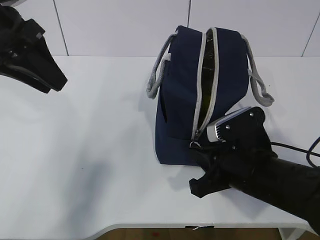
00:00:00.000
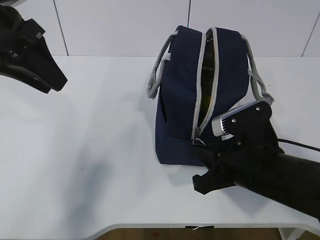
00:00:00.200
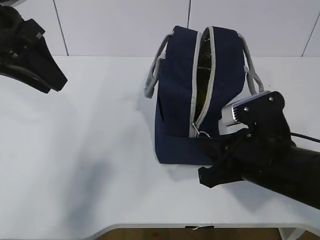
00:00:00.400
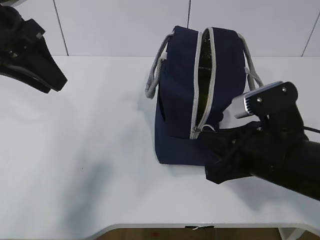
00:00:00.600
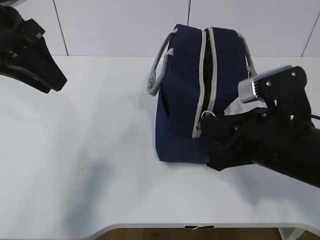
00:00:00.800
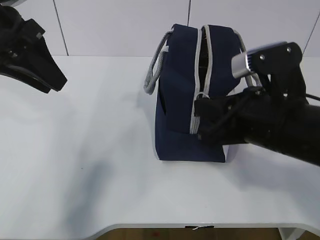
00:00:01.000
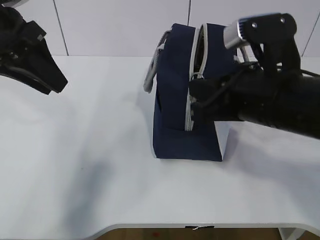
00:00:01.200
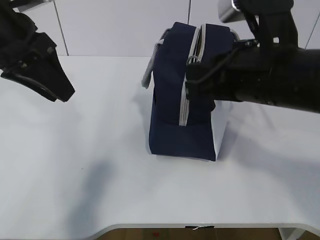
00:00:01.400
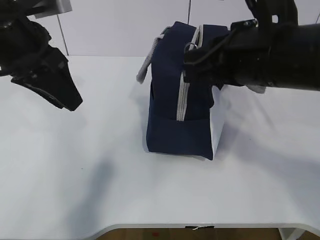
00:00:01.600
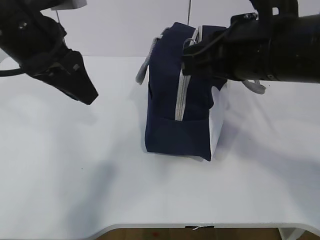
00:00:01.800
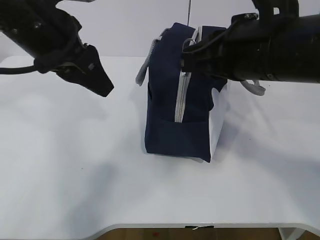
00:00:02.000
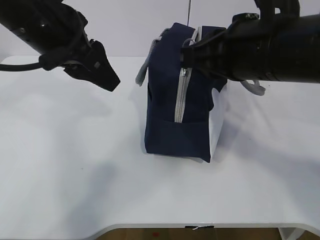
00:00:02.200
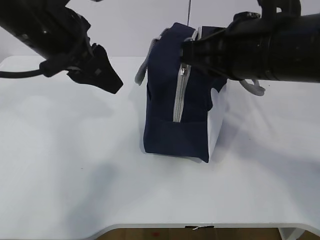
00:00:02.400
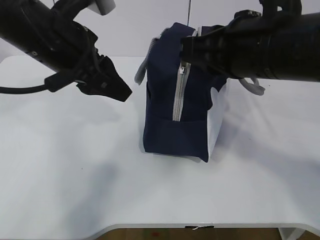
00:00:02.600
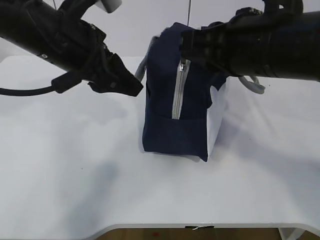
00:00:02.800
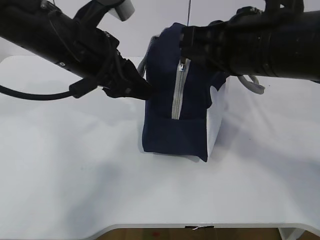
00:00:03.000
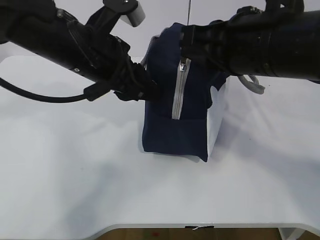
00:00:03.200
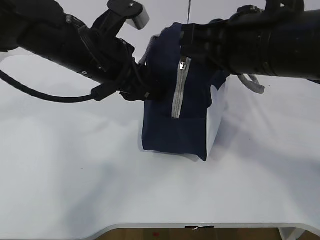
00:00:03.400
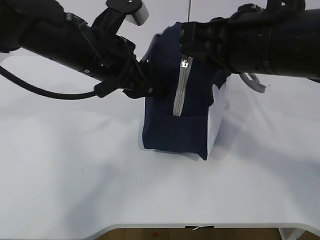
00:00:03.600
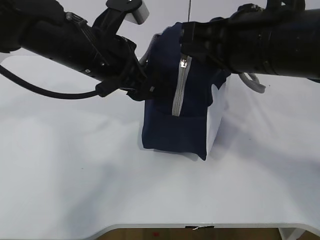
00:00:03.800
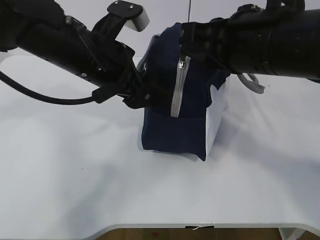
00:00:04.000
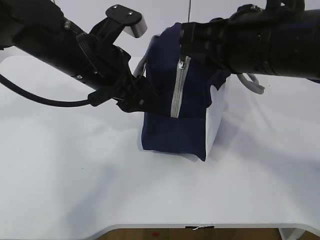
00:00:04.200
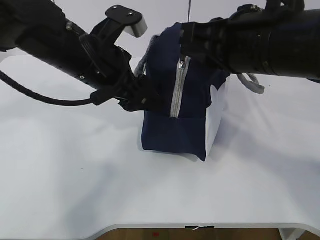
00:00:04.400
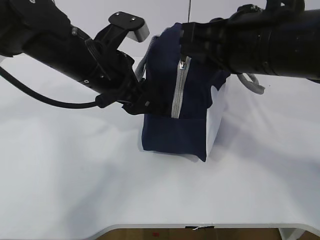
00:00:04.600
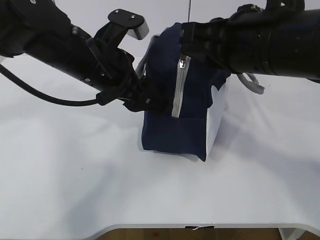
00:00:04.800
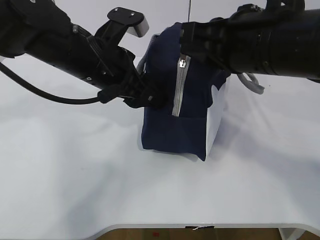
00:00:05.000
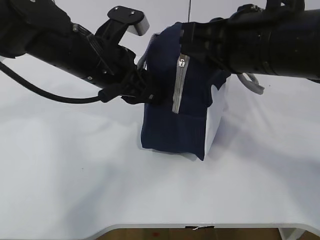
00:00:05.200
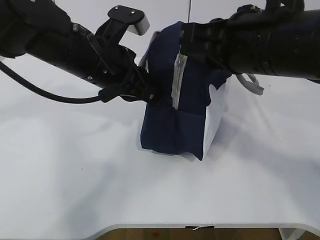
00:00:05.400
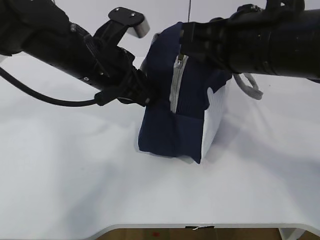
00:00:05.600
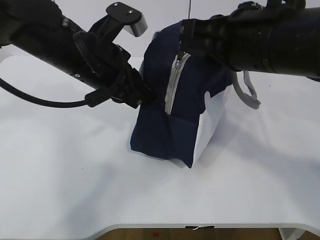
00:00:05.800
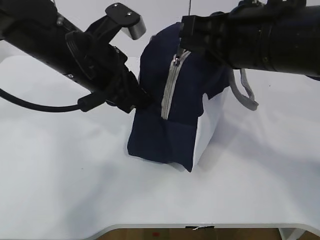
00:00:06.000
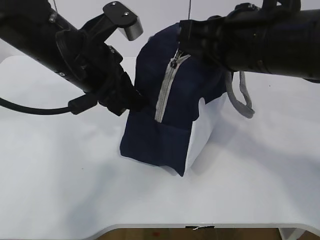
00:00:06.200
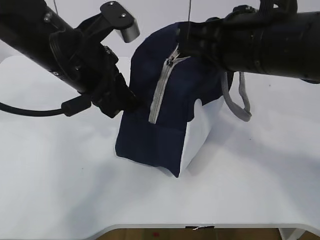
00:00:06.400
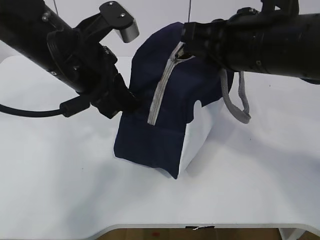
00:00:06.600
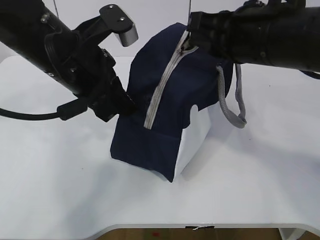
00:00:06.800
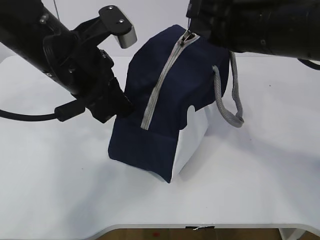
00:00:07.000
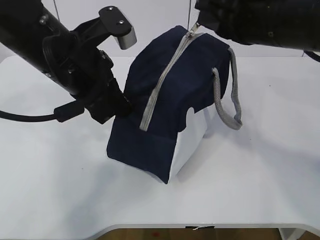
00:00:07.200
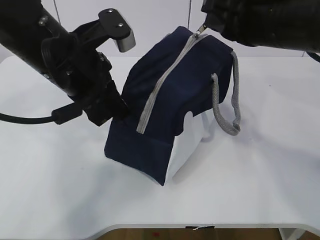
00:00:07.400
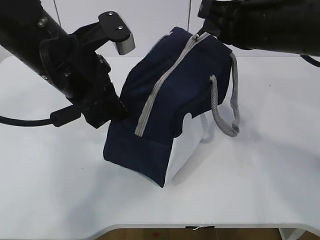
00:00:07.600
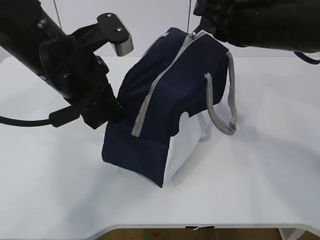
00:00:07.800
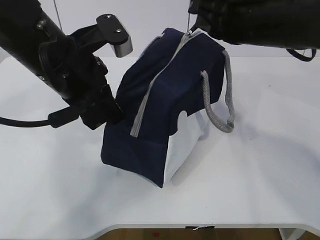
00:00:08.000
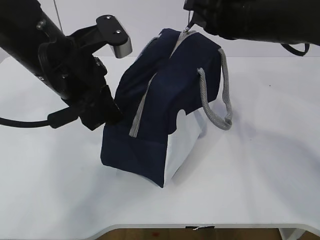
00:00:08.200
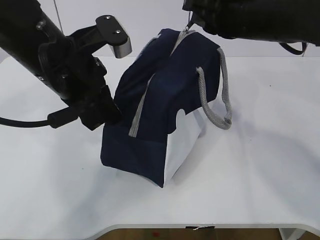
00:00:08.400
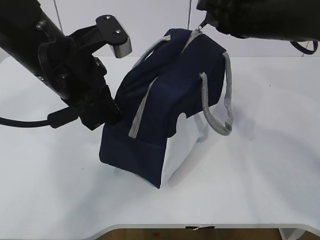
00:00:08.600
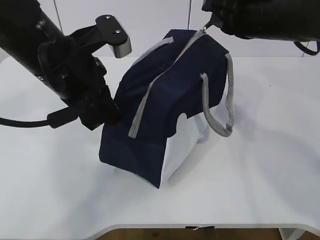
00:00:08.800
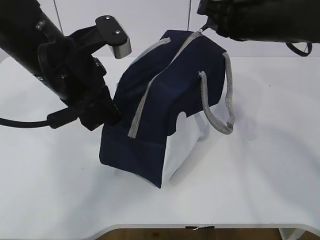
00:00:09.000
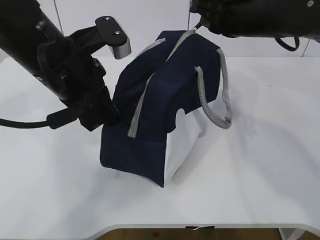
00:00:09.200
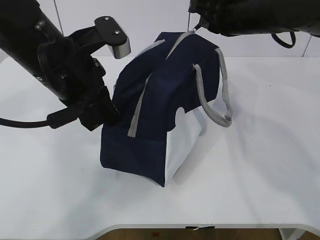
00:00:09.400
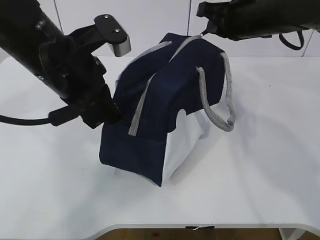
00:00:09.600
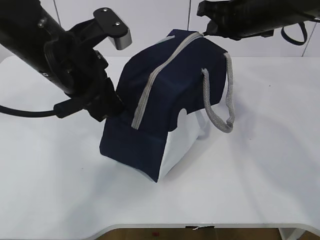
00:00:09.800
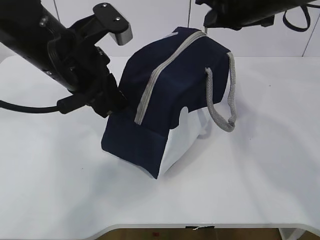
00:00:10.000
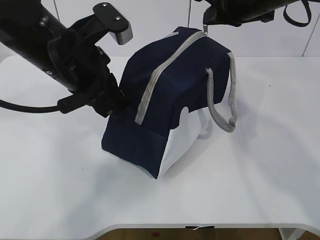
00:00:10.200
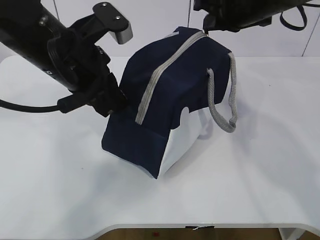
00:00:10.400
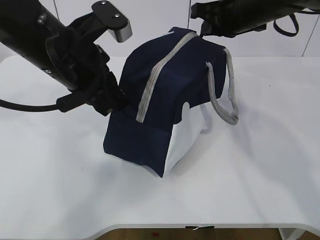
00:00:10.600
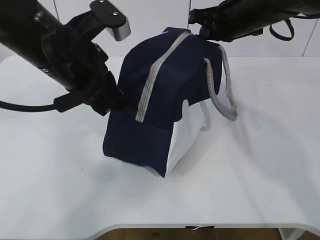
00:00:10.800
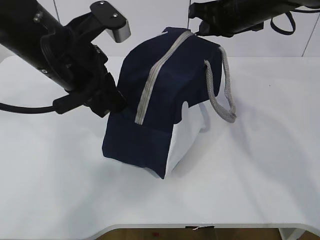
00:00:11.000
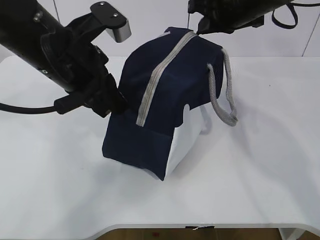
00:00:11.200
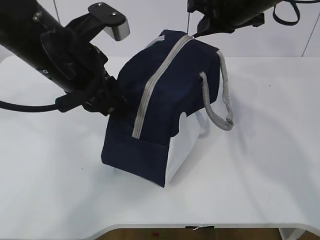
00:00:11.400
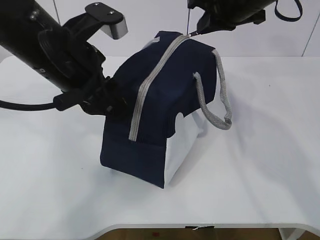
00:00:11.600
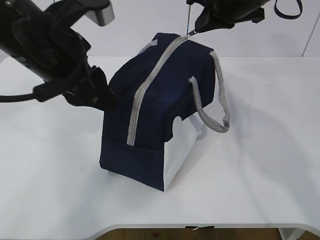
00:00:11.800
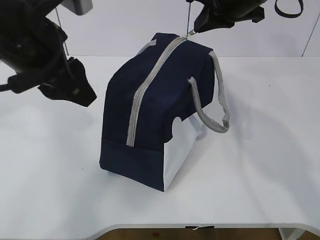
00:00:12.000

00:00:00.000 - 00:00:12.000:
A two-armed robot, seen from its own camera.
00:00:00.000 - 00:00:01.600: The right gripper heads upward, covering roughly 15 cm.
00:00:01.600 - 00:00:03.000: The left gripper is displaced to the right by roughly 5 cm.
00:00:03.000 - 00:00:04.400: The left gripper opens up.
00:00:04.400 - 00:00:06.000: The left gripper closes up.
00:00:06.000 - 00:00:07.600: The right gripper travels forward by roughly 5 cm.
00:00:07.600 - 00:00:09.000: The right gripper shifts approximately 5 cm forward.
00:00:09.000 - 00:00:10.400: The grippers make only small movements.
00:00:10.400 - 00:00:12.000: The left gripper changes place by some 5 cm, and opens its fingers.

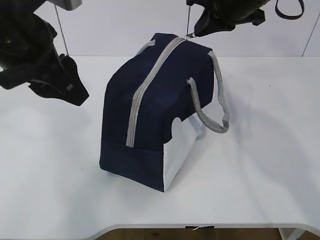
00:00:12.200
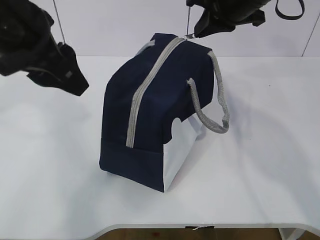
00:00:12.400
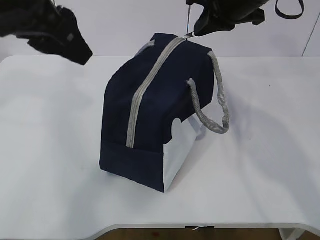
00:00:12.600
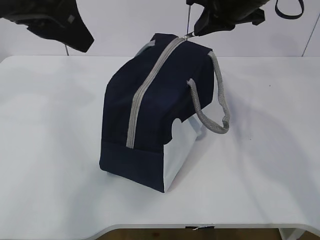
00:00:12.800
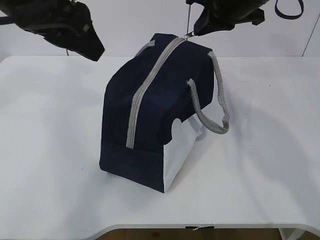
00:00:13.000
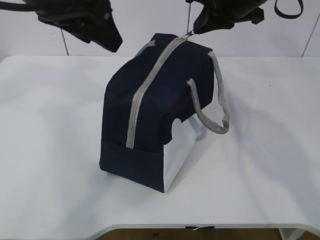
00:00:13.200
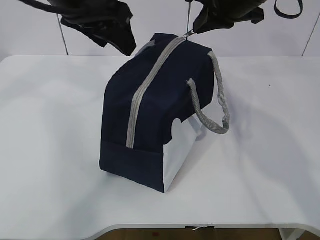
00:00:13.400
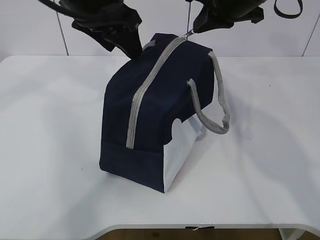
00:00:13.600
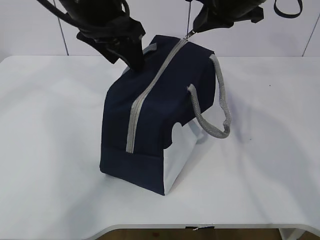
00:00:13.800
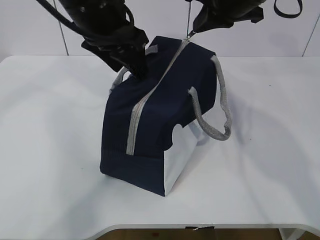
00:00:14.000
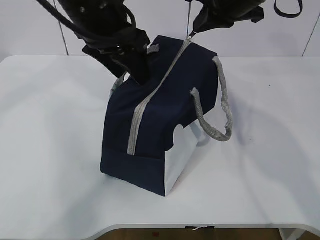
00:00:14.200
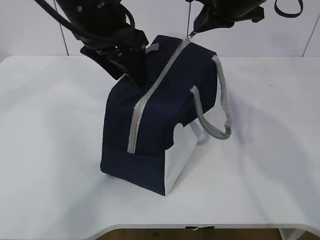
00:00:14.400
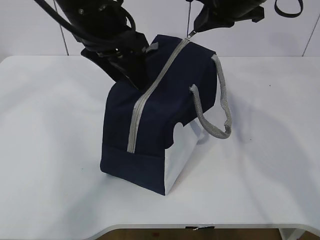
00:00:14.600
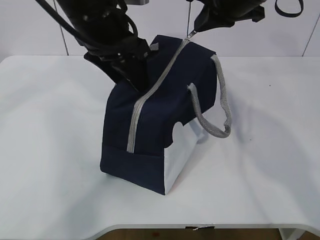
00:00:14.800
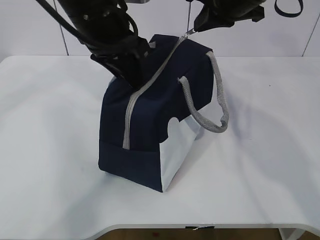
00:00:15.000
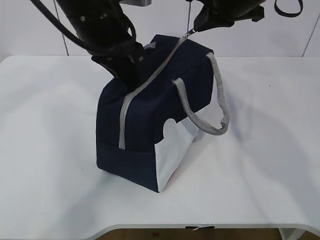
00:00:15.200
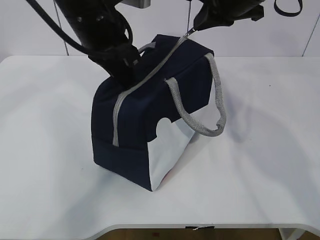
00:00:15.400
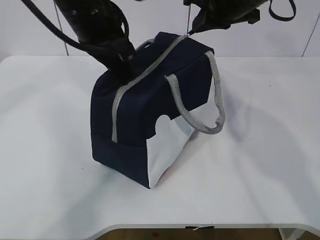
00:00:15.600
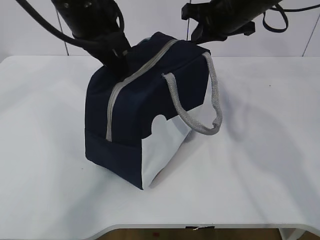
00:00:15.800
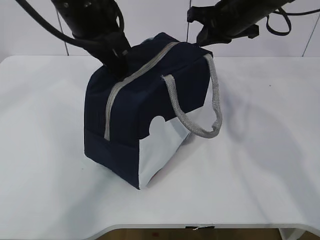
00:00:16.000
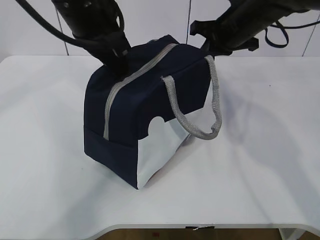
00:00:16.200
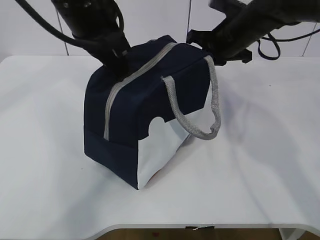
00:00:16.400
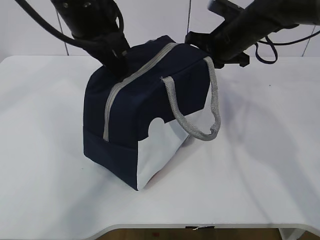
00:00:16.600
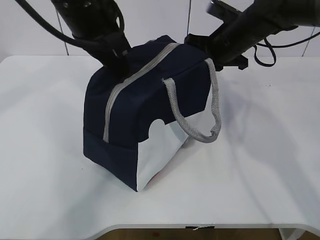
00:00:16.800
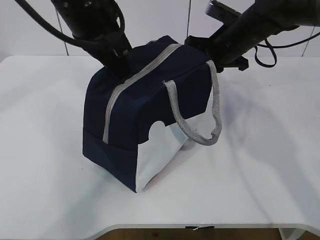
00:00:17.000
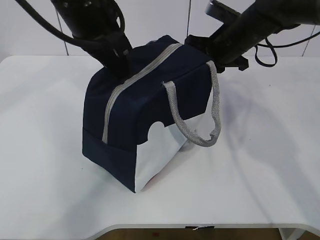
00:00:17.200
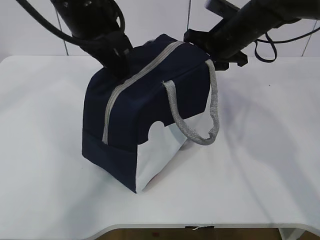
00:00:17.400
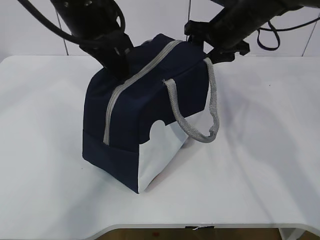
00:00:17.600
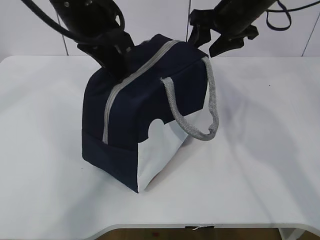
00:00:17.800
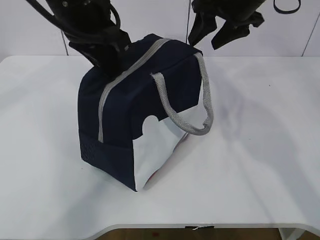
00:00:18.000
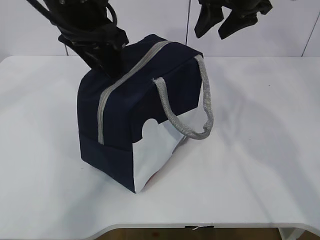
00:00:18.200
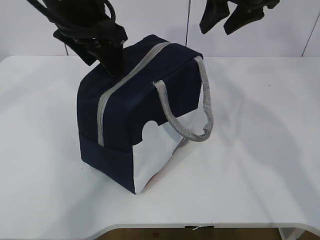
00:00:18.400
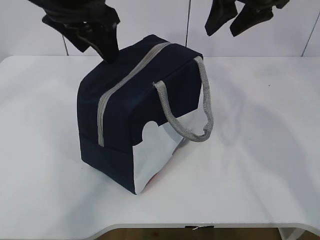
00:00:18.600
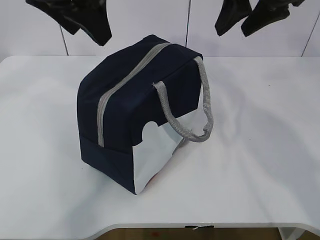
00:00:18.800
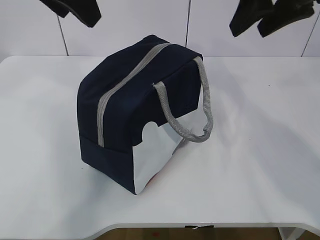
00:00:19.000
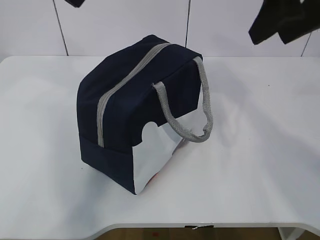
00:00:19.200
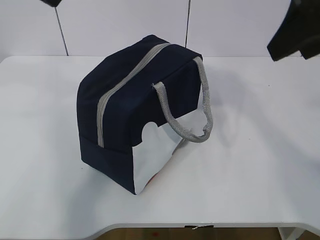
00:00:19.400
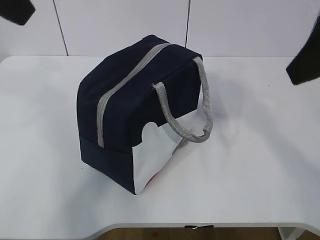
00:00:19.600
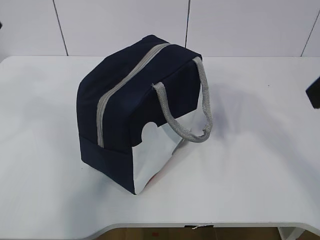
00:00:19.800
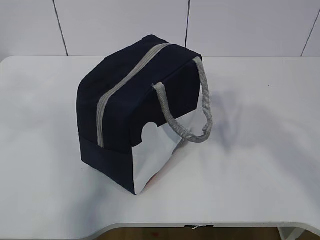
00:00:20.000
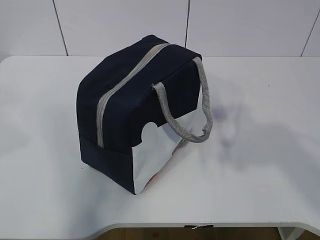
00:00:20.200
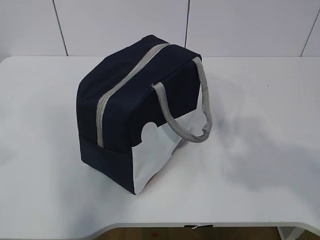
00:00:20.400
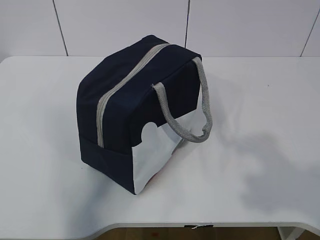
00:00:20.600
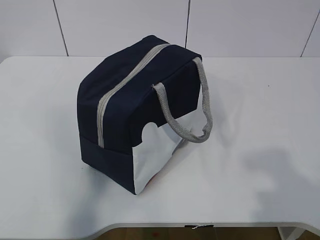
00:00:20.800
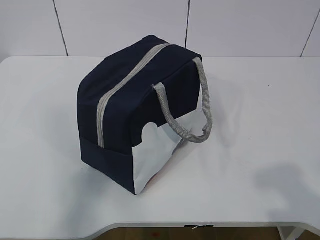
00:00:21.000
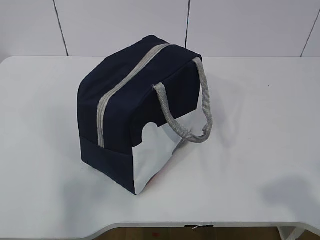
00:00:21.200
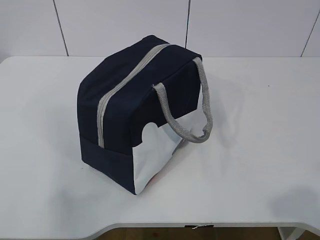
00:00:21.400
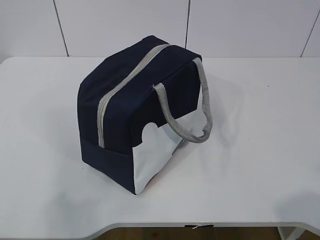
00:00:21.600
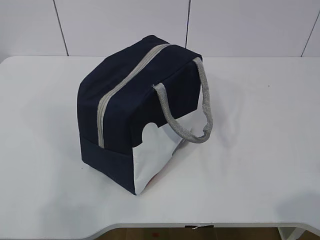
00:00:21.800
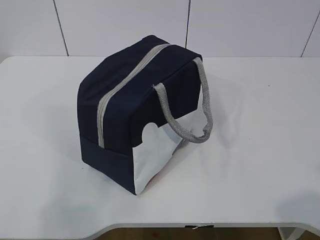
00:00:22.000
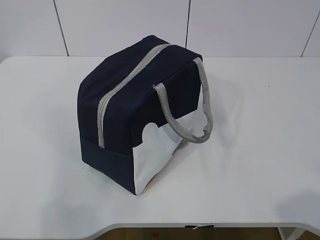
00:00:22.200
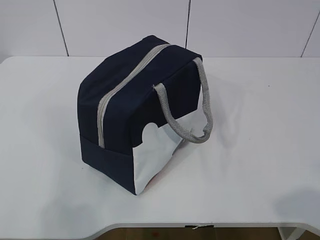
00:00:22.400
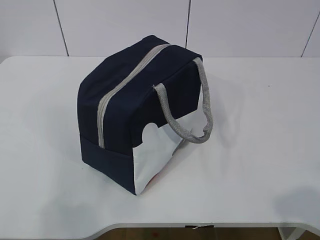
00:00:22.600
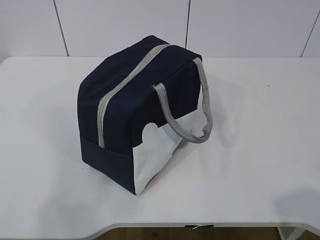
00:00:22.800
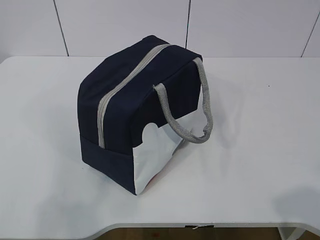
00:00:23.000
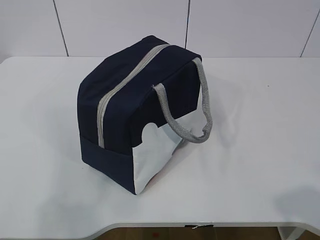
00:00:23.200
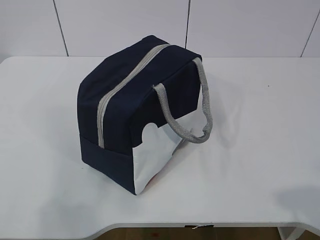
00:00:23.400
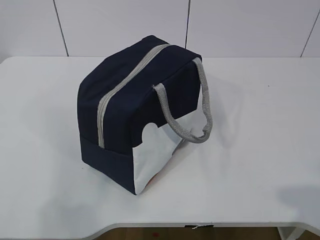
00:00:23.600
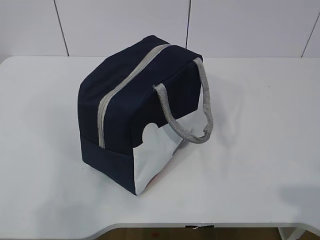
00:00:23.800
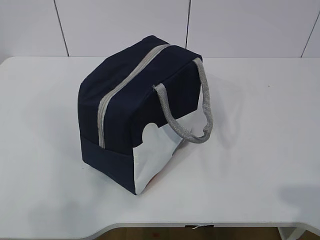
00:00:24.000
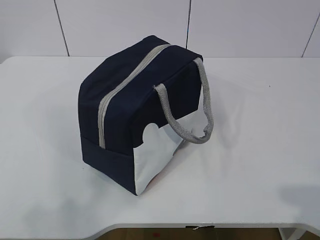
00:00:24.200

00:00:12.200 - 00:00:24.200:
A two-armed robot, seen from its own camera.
Step, 00:00:12.200 - 00:00:18.000: zip up the zipper to close the bag.
00:00:12.200 - 00:00:13.800: The left gripper heads forward and to the right, covering about 10 cm.
00:00:13.800 - 00:00:15.200: The left gripper closes its fingers.
00:00:15.200 - 00:00:16.600: The right gripper moves downward, some 10 cm.
00:00:16.600 - 00:00:18.200: The right gripper is displaced upward by about 10 cm, and opens its fingers, while the left gripper opens.
00:00:18.200 - 00:00:19.800: The right gripper travels backward by roughly 25 cm. Meanwhile the left gripper travels backward, upward and to the left by about 20 cm.
00:00:19.800 - 00:00:21.200: The left gripper heads backward, to the left and downward, covering roughly 25 cm, while the right gripper travels backward and downward by roughly 20 cm.
